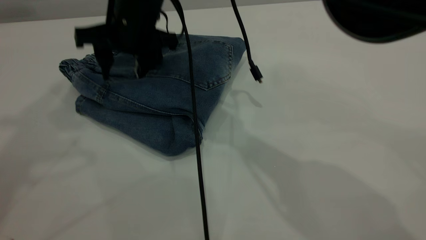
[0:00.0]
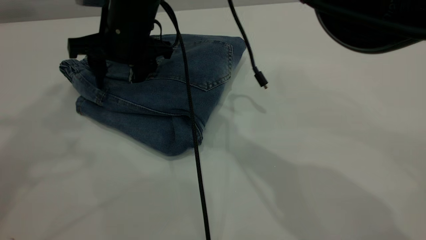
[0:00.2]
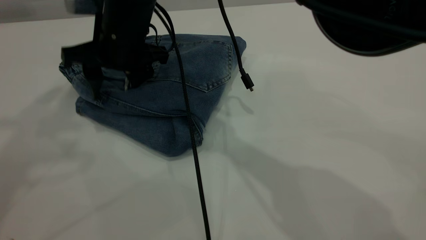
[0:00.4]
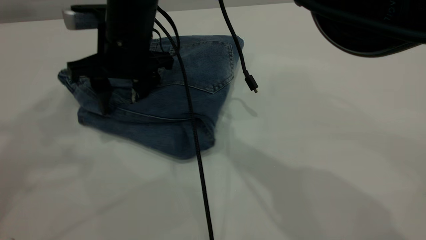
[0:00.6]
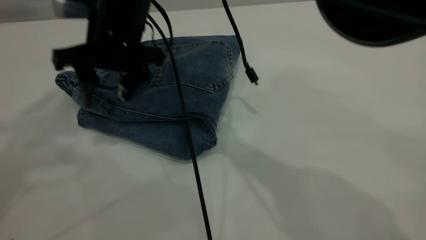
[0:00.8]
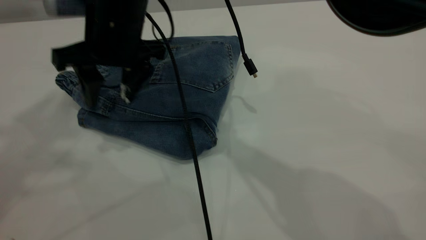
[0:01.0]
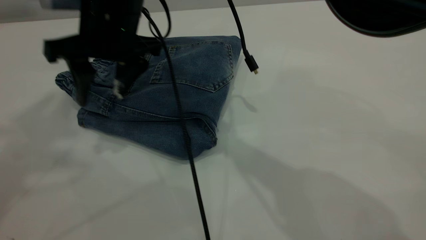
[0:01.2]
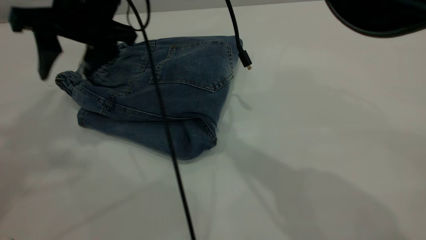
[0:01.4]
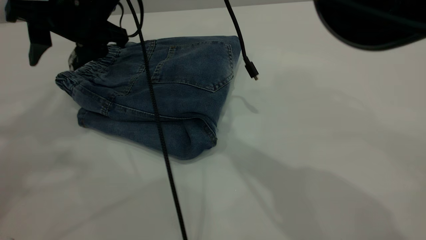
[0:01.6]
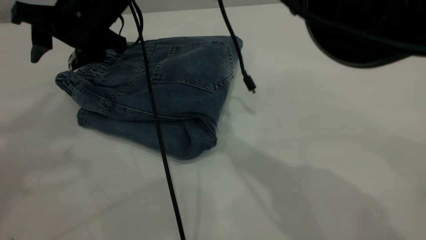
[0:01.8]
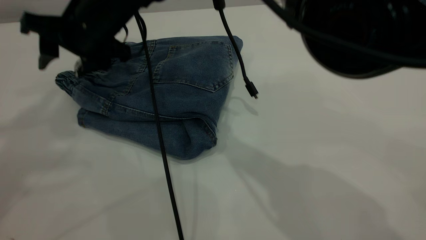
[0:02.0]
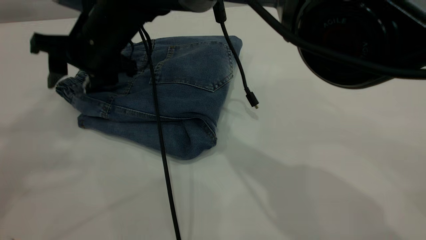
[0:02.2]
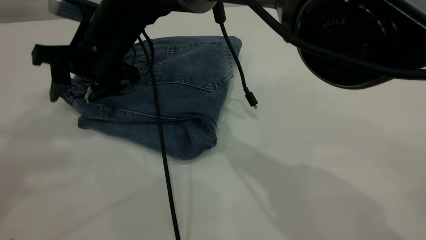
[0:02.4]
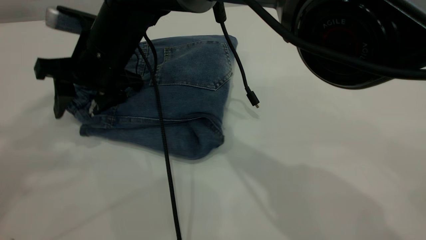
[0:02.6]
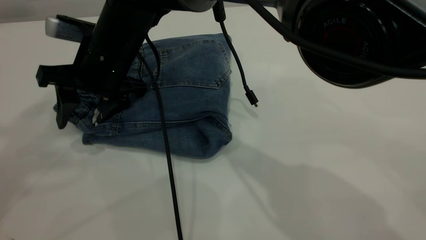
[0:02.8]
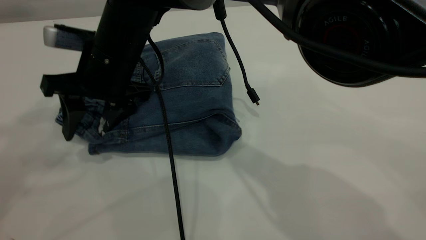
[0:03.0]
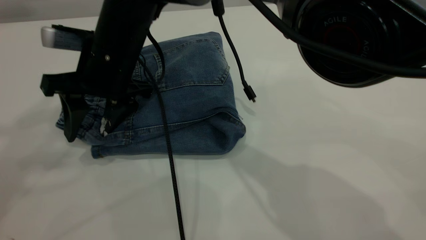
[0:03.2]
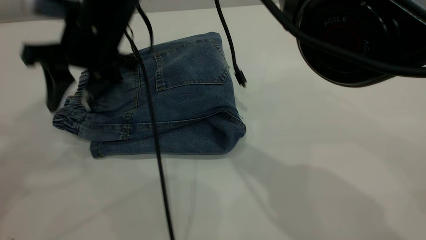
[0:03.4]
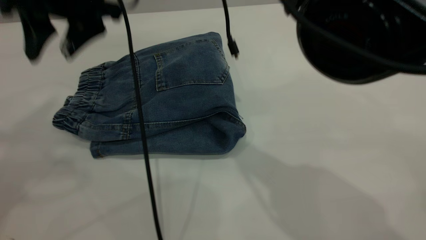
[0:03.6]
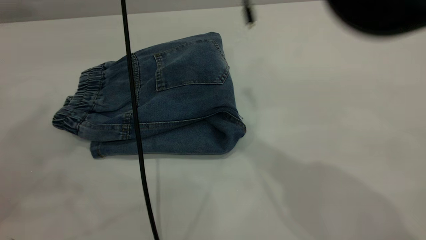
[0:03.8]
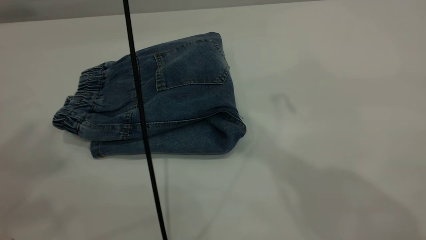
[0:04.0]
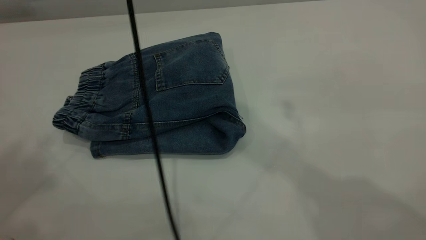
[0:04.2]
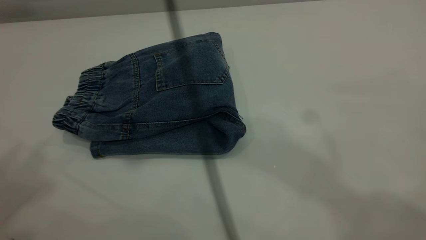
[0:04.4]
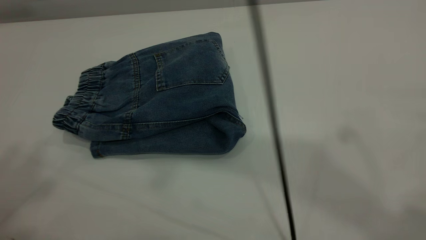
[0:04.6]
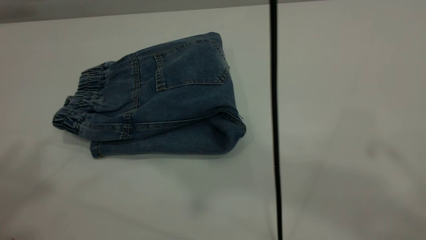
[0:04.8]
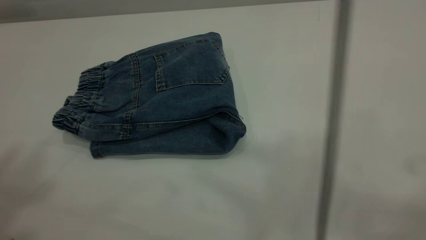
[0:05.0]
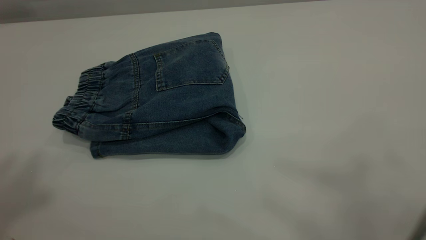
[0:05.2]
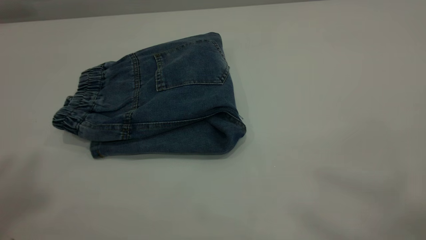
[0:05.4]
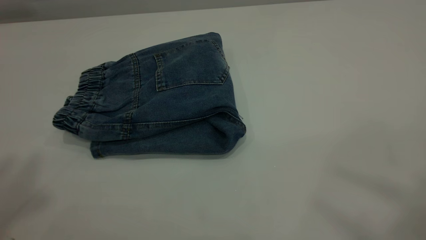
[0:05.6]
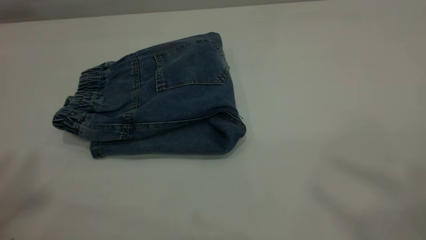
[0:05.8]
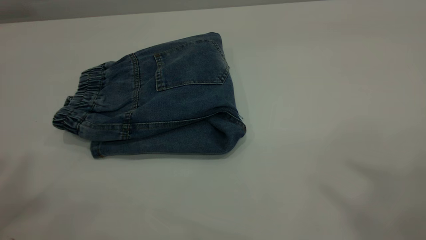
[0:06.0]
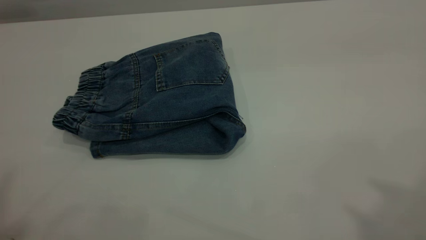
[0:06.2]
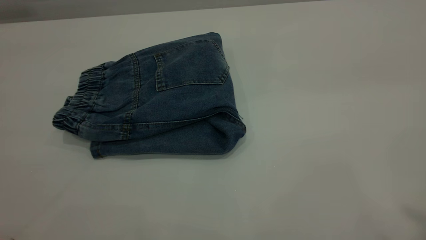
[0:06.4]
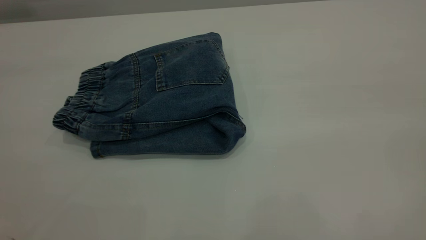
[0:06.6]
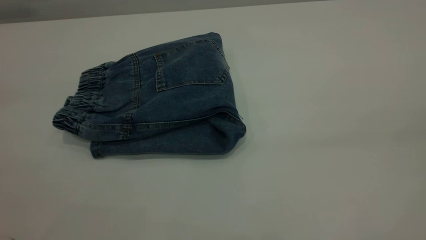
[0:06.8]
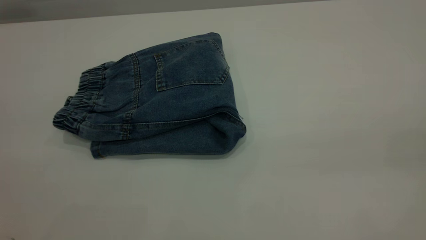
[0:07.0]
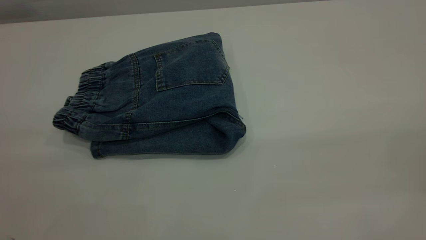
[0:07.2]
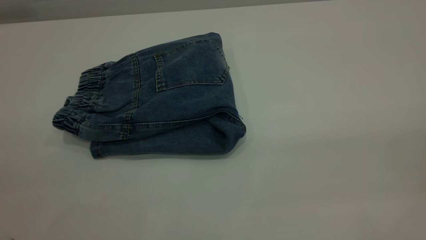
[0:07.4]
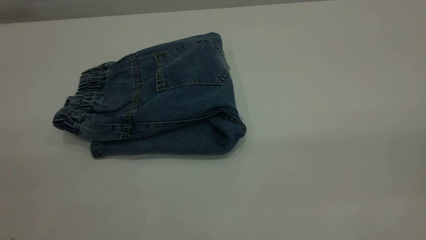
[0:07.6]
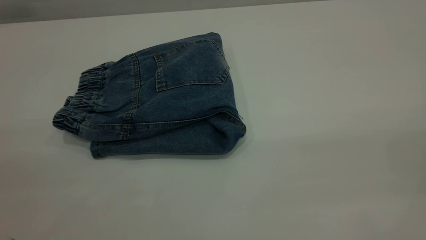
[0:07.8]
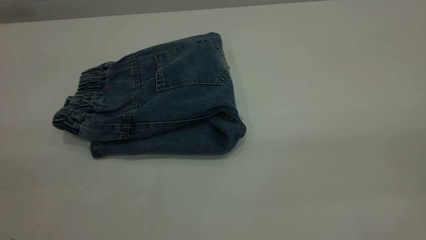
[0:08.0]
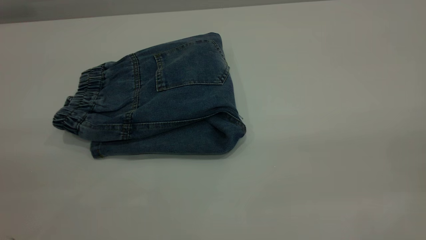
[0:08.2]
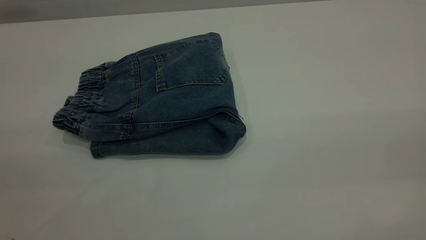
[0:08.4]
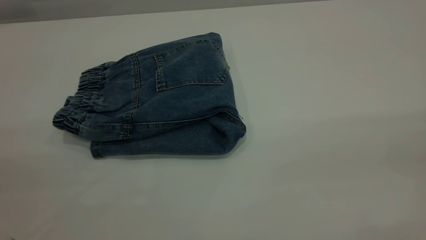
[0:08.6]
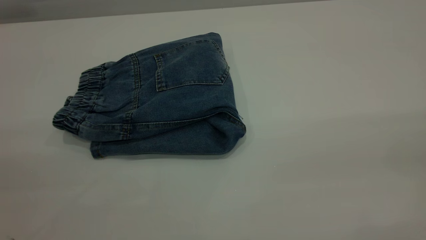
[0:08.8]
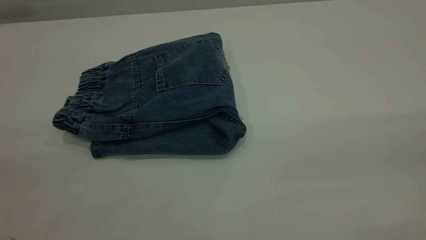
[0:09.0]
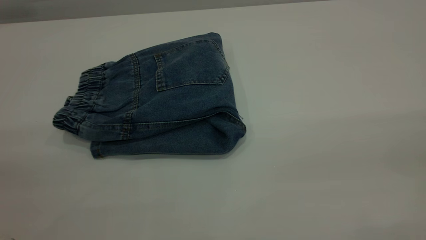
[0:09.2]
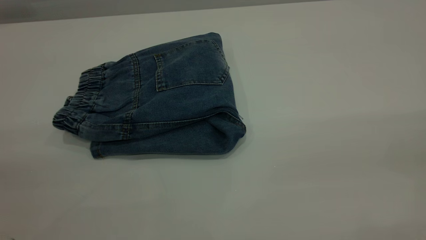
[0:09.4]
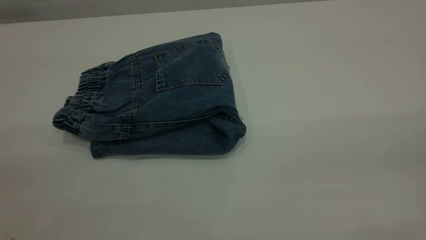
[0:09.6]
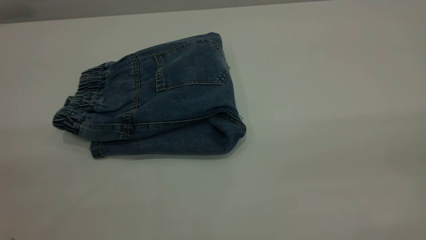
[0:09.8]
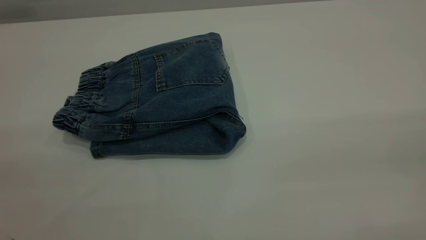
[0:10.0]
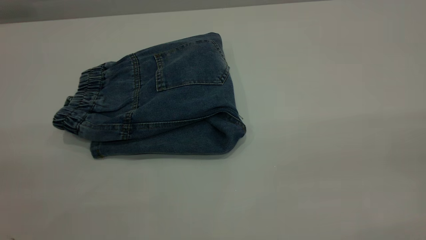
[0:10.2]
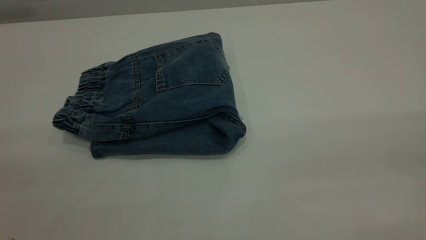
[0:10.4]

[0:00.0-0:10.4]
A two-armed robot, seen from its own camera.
0:00.0 to 0:01.4: The right gripper changes place by approximately 5 cm.
0:01.4 to 0:03.0: The right gripper is displaced downward by about 10 cm.
0:03.0 to 0:04.4: The right gripper goes approximately 40 cm upward; the left gripper travels backward and upward by approximately 10 cm.
0:04.4 to 0:06.0: The right gripper moves to the right and backward, about 25 cm.
0:09.0 to 0:10.4: Both grippers stay put.

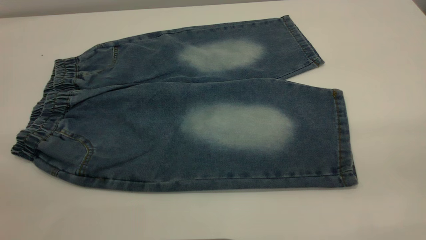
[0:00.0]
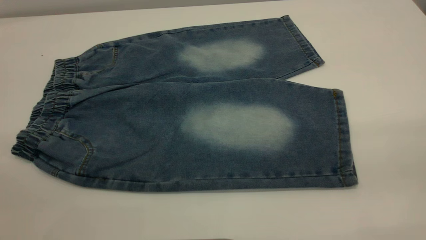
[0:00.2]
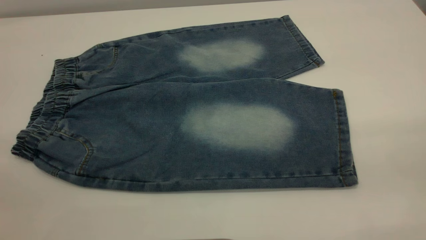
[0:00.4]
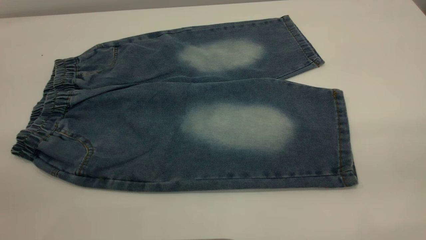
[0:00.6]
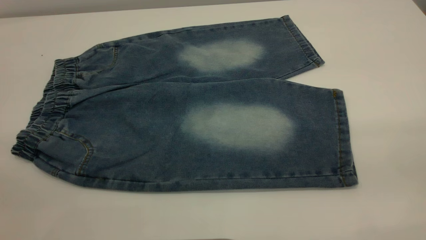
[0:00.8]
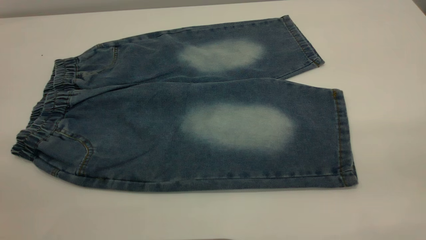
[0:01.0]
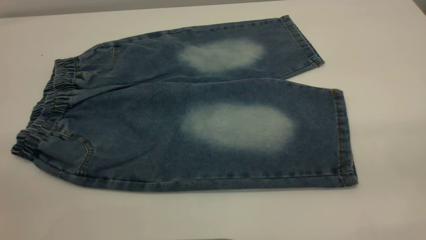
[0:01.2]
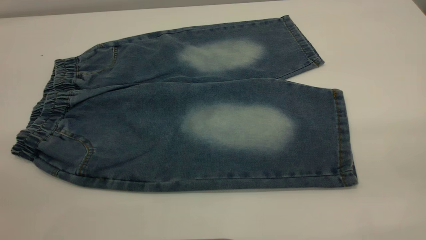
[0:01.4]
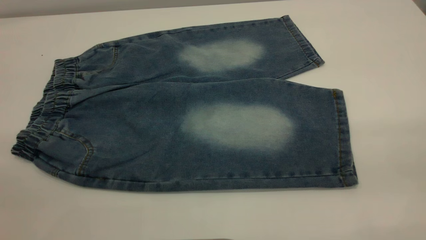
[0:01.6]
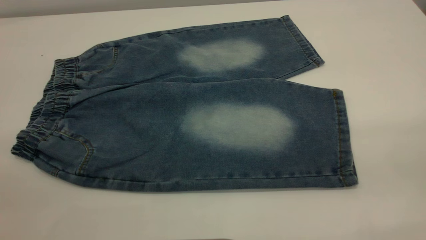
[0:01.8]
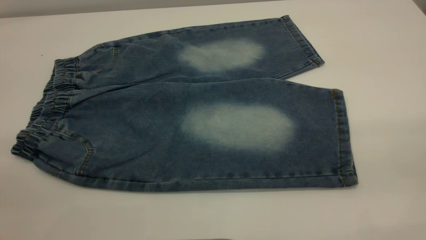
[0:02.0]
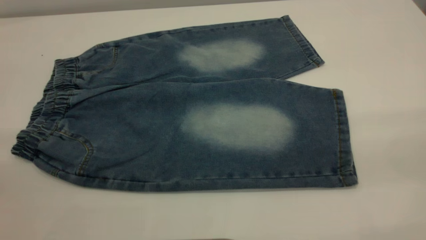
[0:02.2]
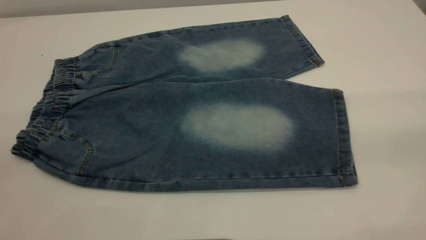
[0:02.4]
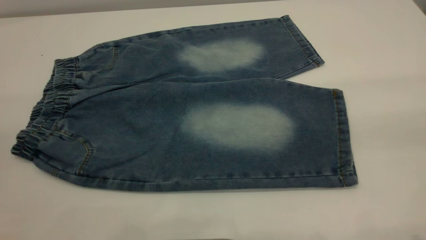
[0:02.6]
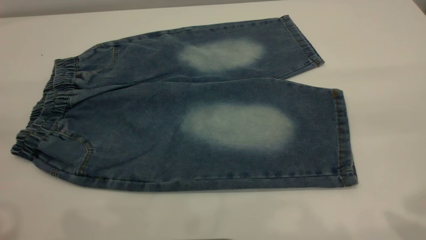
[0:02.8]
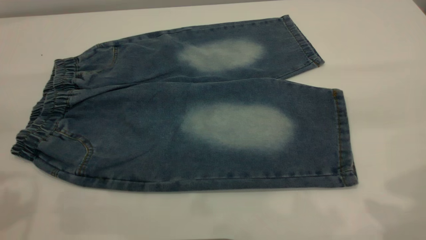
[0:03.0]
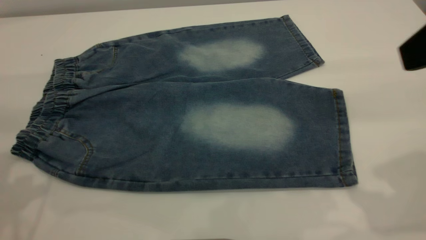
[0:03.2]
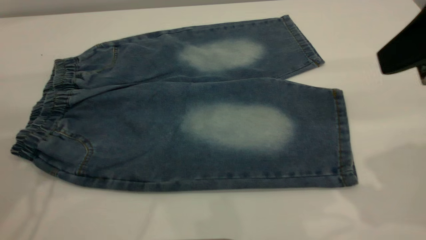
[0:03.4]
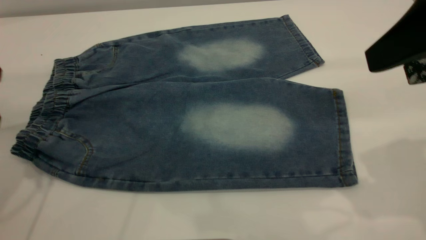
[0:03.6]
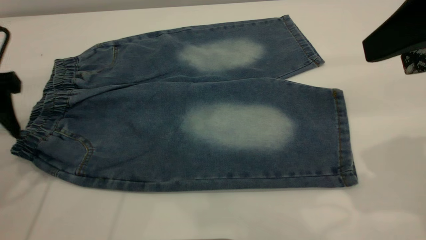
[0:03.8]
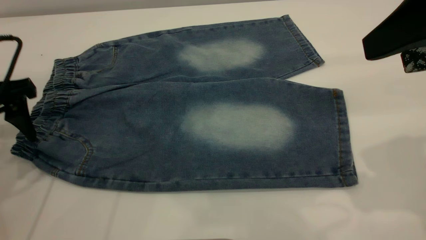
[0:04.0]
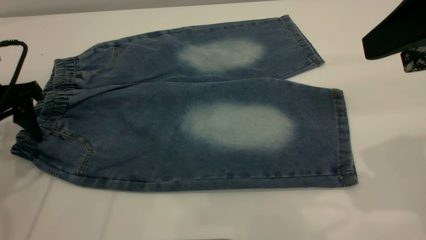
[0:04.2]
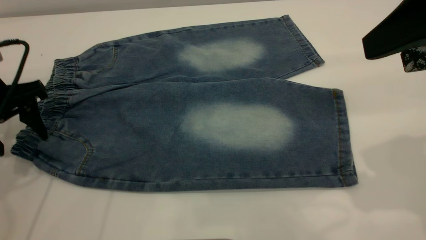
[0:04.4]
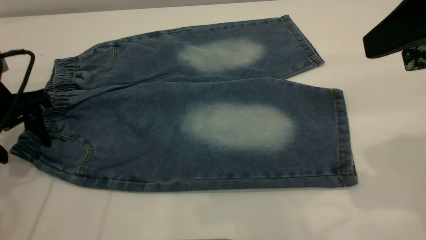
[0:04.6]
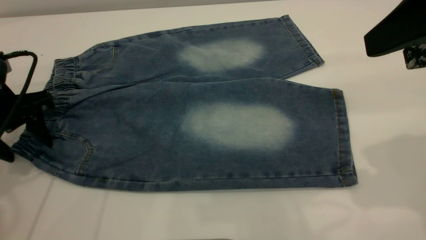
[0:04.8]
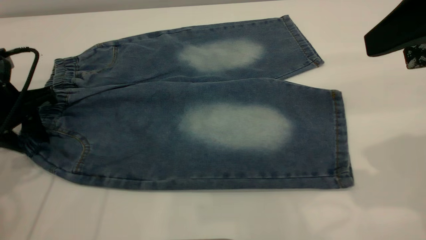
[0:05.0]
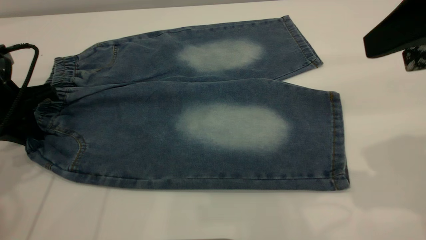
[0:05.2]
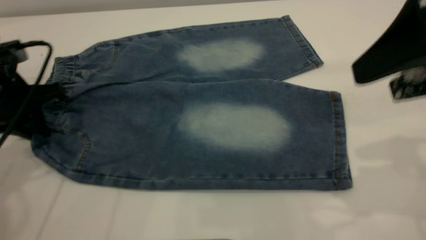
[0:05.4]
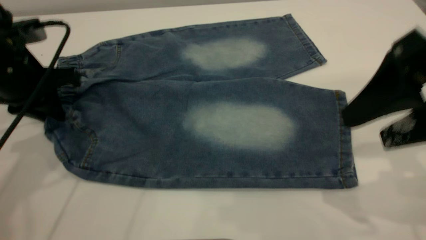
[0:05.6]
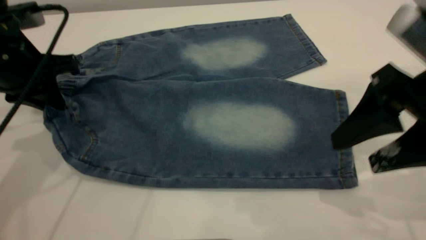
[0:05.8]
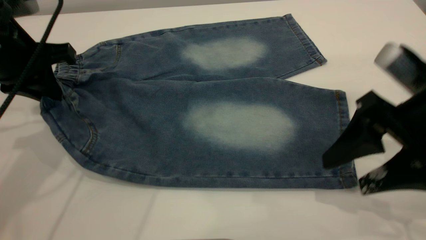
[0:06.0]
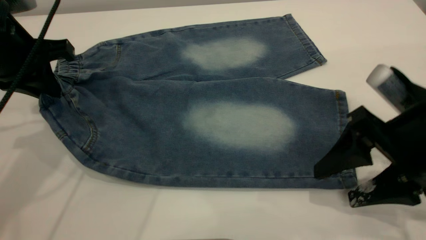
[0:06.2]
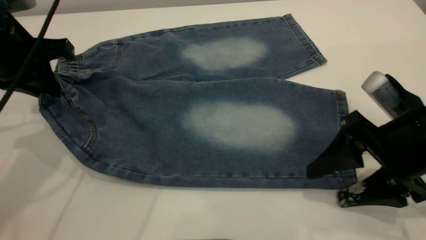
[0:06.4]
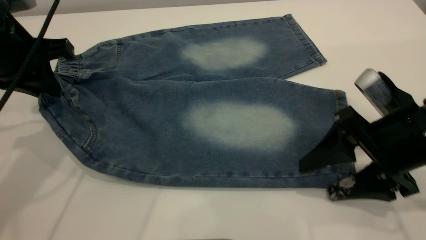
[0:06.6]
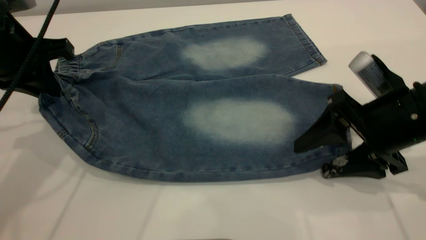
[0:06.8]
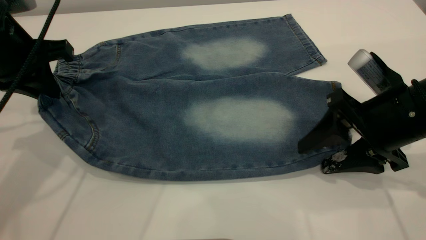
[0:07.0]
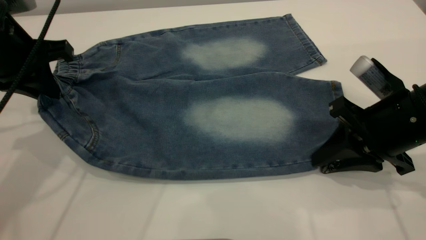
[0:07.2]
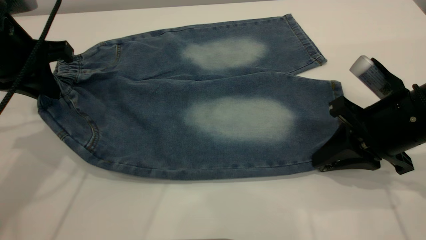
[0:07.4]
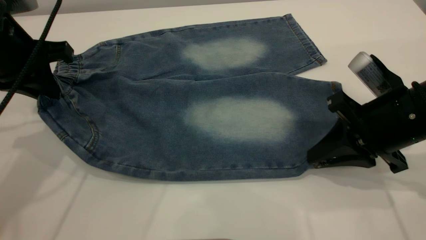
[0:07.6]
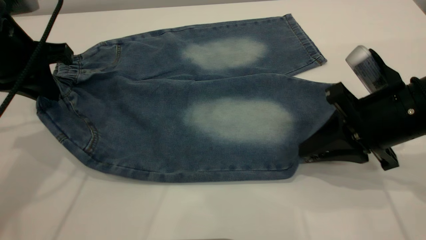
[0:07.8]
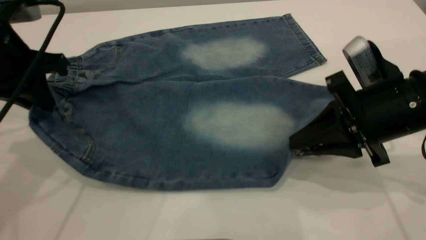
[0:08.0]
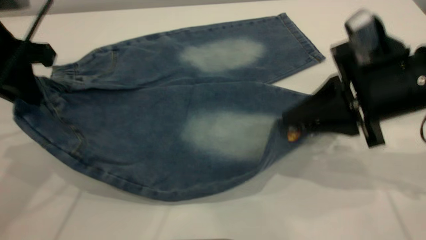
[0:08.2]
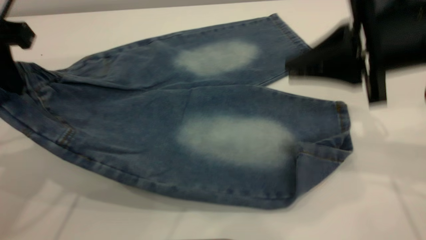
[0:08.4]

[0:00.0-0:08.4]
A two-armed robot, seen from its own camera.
0:00.0 to 0:01.4: The two grippers keep their place.
0:02.8 to 0:04.2: The left gripper moves downward and forward, approximately 25 cm. The right gripper is displaced forward by approximately 5 cm.
0:04.2 to 0:05.6: The right gripper moves downward, approximately 5 cm, while the left gripper shifts by approximately 5 cm, and closes.
0:05.6 to 0:07.0: The right gripper travels downward by approximately 10 cm.
0:07.0 to 0:08.4: The left gripper is displaced upward by some 5 cm; the right gripper travels upward by roughly 10 cm, and closes its fingers.